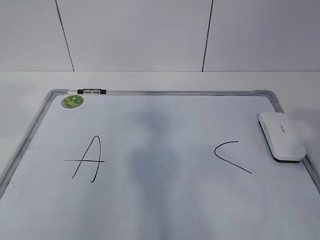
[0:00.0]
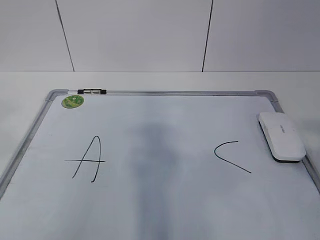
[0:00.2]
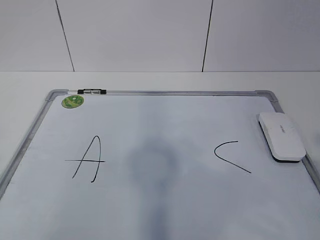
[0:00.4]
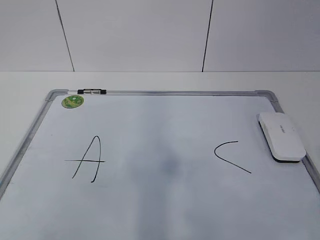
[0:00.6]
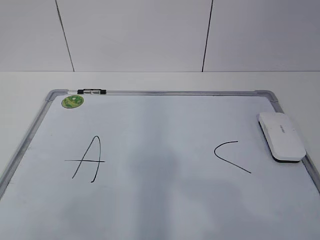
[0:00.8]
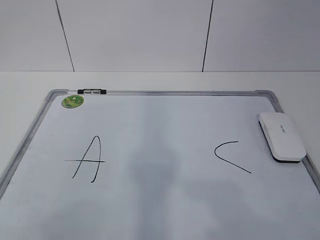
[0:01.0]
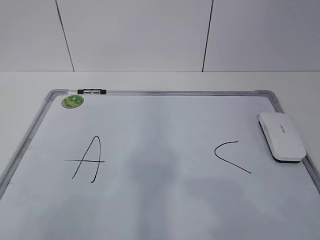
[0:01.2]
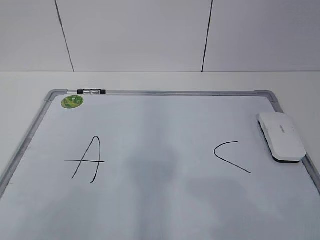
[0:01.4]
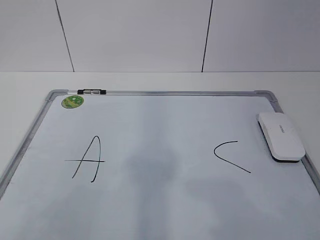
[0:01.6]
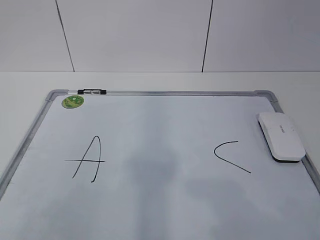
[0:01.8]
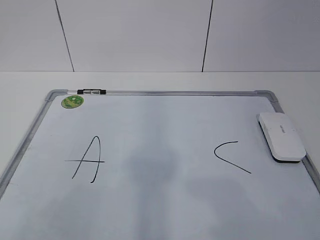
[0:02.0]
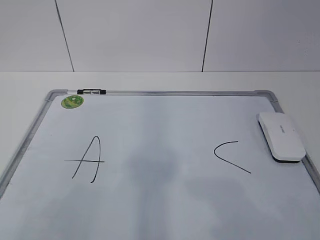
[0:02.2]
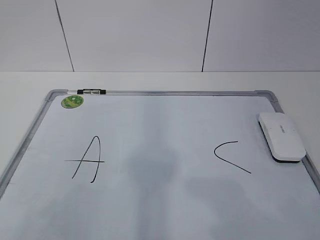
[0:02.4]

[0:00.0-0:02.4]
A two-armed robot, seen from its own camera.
Task of the whole recording: pick up the eraser on the blackboard and erase the letter "B".
0:00.0 to 0:01.2: The right gripper moves downward and backward, roughly 10 cm; the left gripper travels backward and downward by roughly 20 cm.

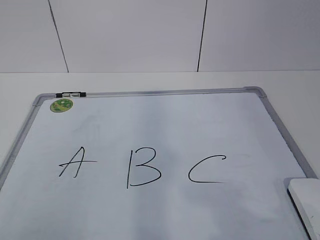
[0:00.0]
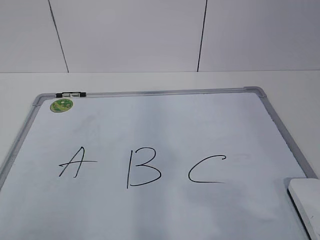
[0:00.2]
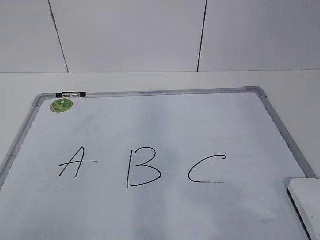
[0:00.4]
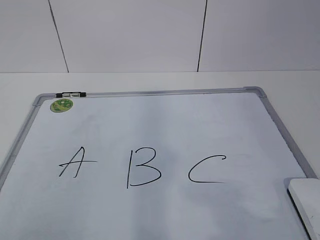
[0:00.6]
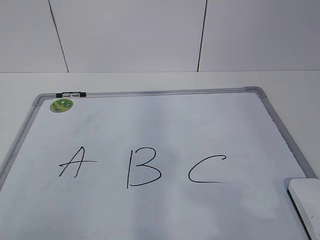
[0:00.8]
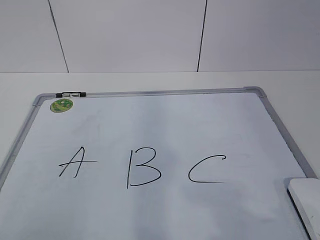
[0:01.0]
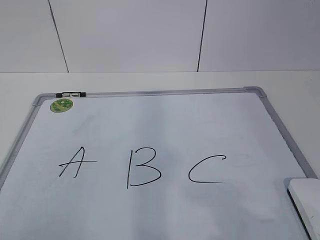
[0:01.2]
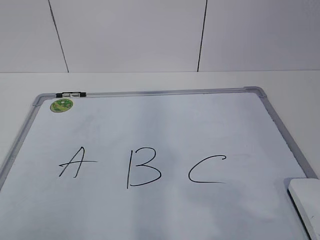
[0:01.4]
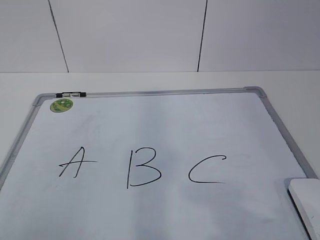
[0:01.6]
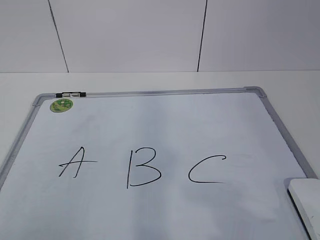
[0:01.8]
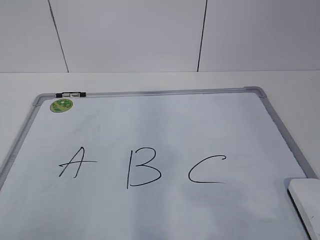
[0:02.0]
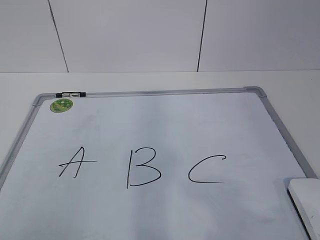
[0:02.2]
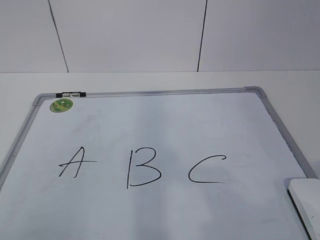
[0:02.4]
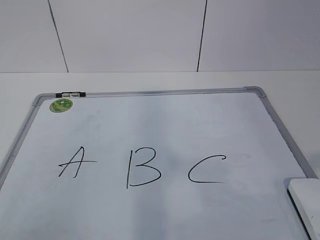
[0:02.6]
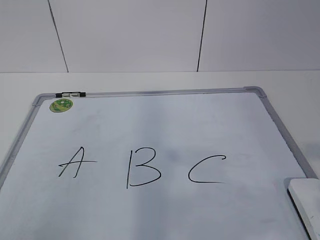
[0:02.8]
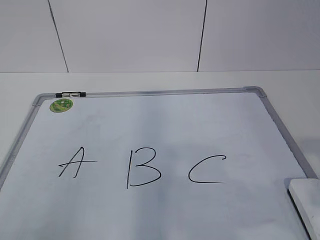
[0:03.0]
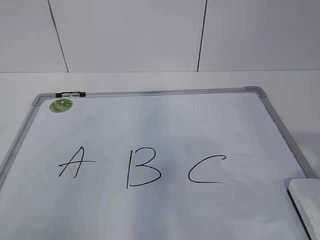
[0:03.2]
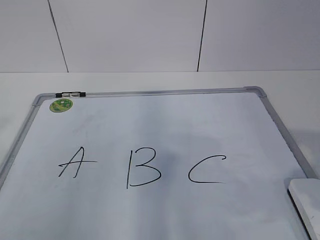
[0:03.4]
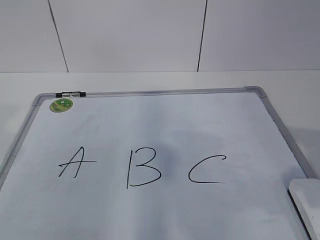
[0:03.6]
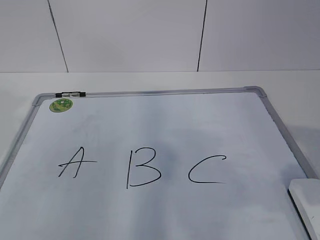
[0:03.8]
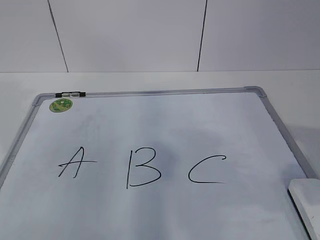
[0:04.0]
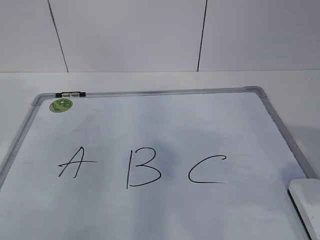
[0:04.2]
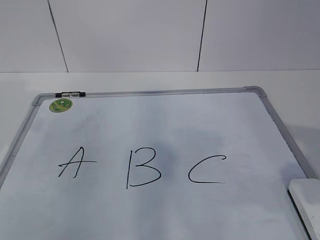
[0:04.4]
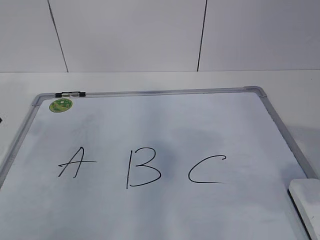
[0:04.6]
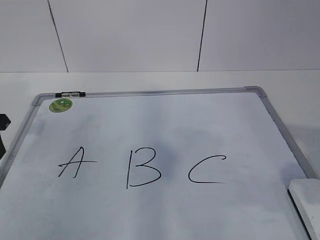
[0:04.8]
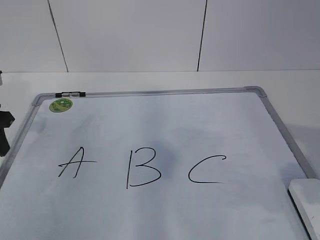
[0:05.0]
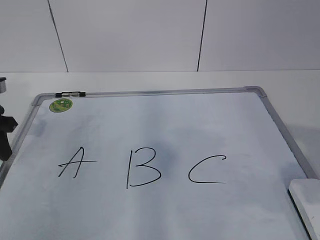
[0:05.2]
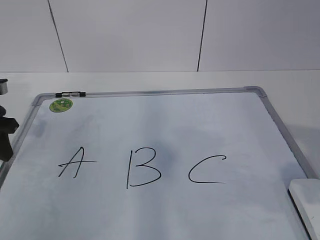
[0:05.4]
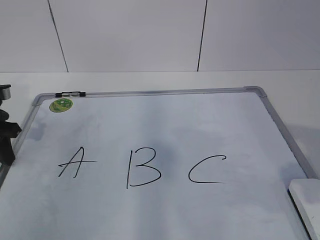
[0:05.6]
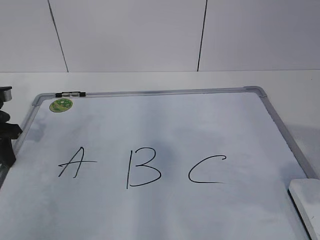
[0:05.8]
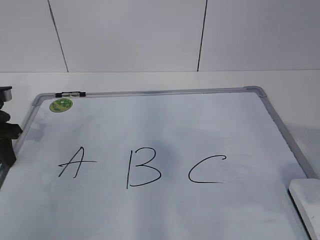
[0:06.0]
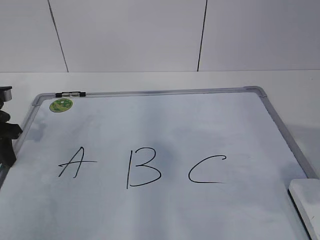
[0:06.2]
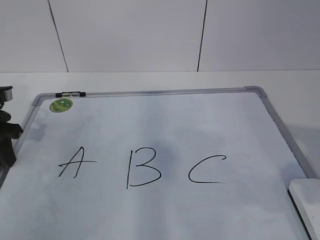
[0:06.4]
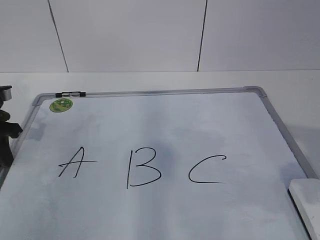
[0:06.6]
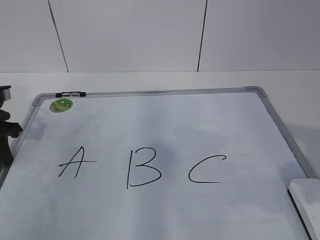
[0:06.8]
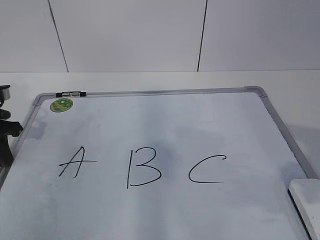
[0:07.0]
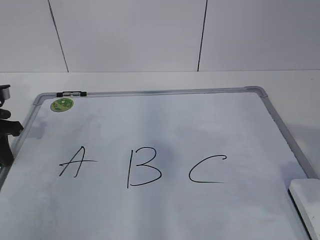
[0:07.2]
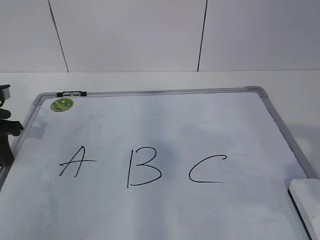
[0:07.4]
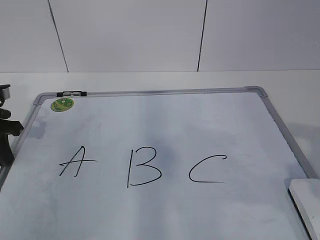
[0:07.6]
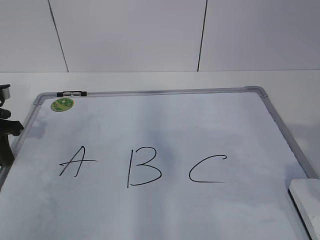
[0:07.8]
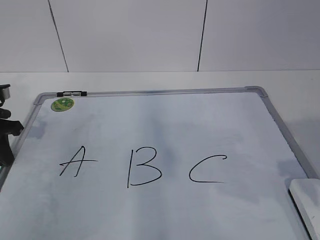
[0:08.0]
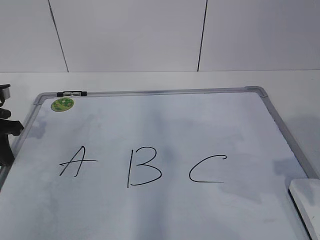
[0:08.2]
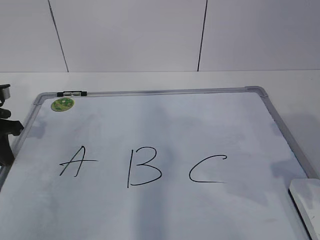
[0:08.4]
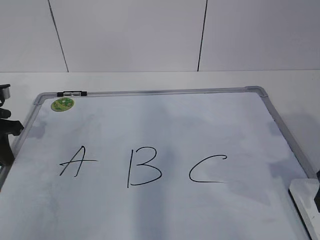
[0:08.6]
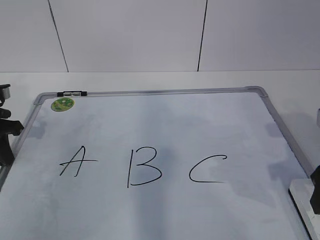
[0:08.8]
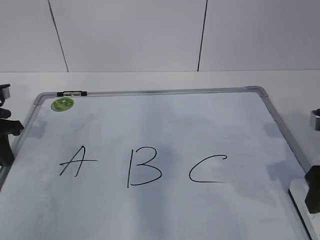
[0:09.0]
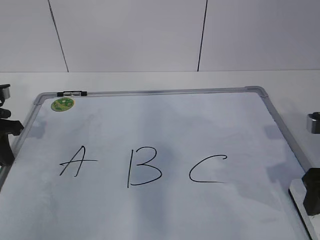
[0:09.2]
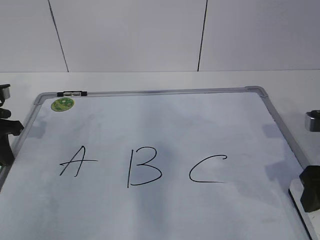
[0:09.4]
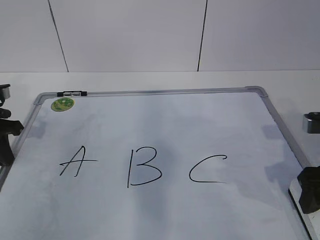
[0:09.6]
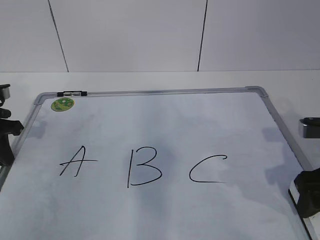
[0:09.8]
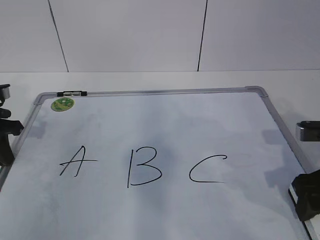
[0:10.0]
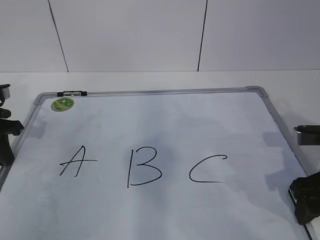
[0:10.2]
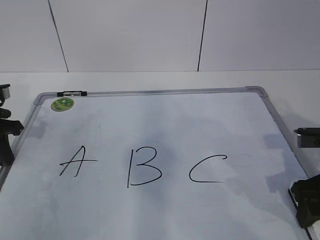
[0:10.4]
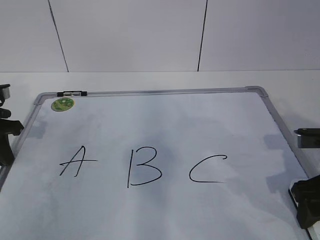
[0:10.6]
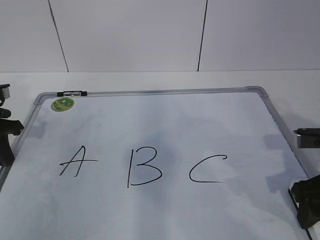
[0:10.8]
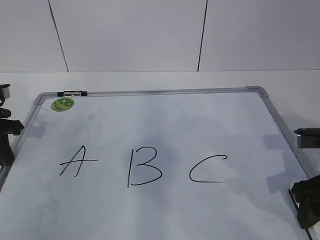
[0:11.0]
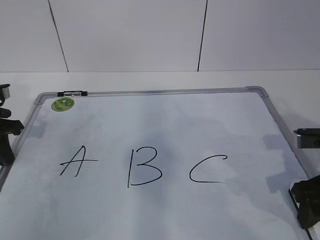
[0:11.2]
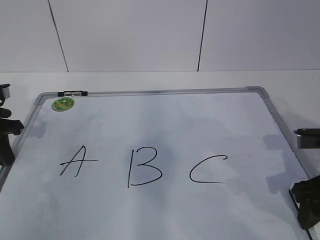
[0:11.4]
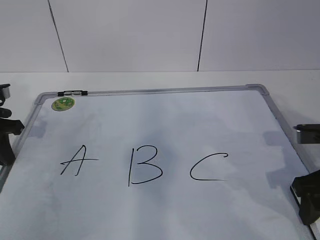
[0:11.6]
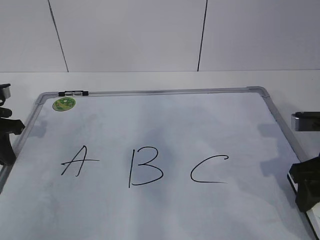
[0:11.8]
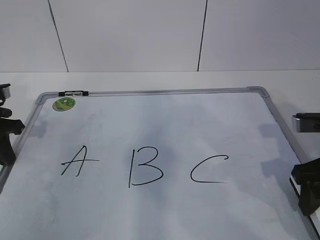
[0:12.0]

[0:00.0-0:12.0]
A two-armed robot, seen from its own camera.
Task of the whole recording: pick up the eraser on the blackboard and erase the letter "B".
0:04.4 to 0:06.0: The left gripper shifts approximately 10 cm downward.
0:06.0 to 0:07.6: The left gripper closes.
0:07.6 to 0:09.0: The right gripper is displaced forward and downward by roughly 15 cm.
0:09.0 to 0:12.0: There are only small adjustments of the grippers.

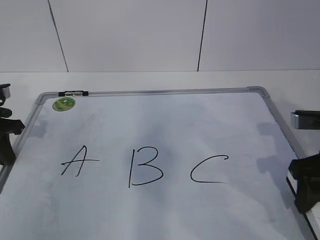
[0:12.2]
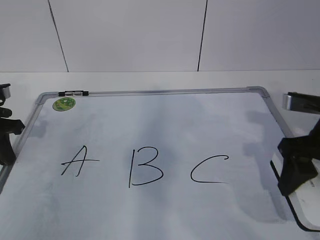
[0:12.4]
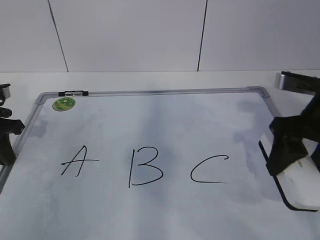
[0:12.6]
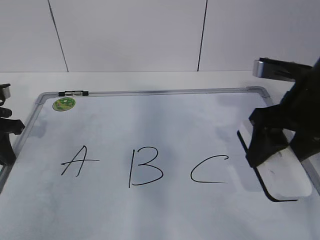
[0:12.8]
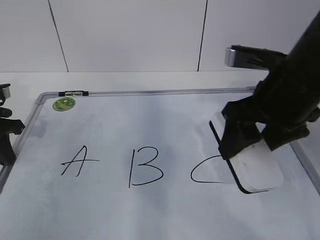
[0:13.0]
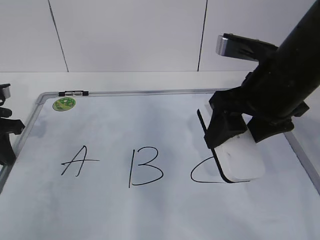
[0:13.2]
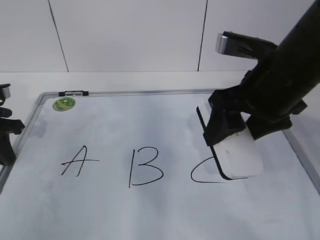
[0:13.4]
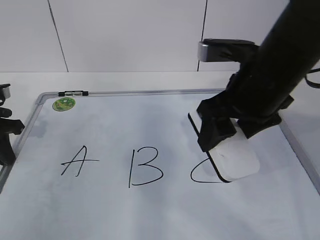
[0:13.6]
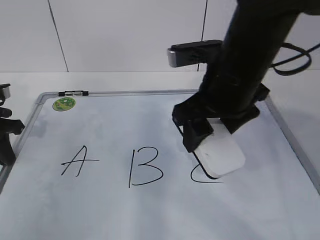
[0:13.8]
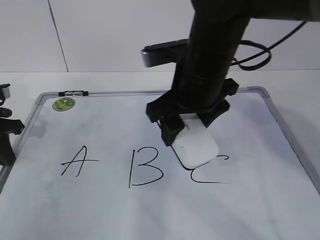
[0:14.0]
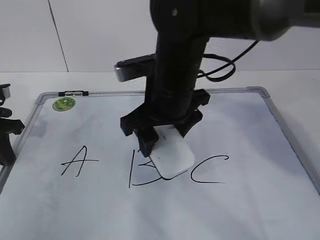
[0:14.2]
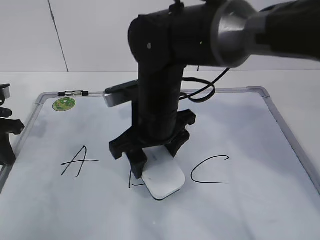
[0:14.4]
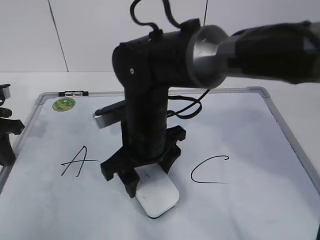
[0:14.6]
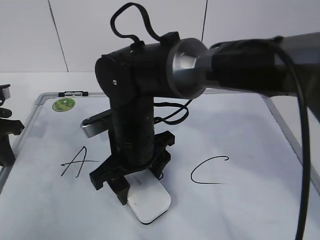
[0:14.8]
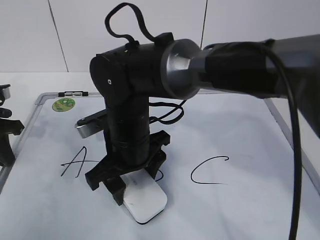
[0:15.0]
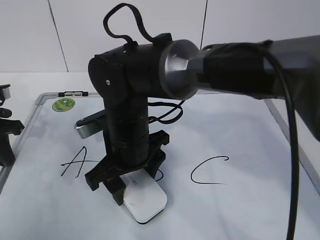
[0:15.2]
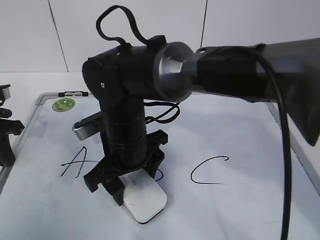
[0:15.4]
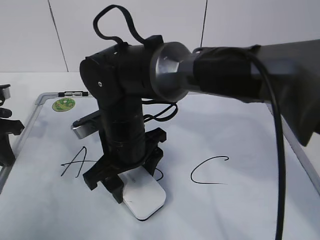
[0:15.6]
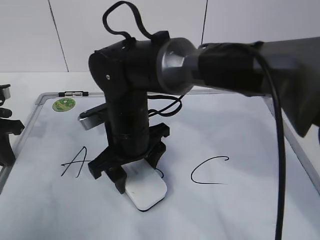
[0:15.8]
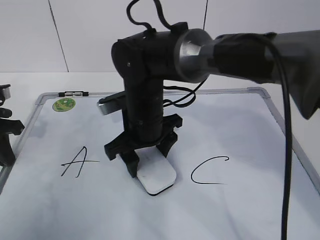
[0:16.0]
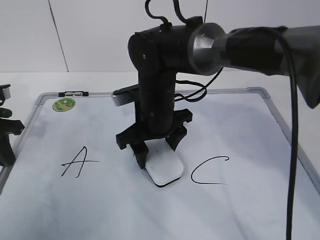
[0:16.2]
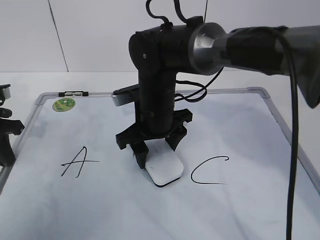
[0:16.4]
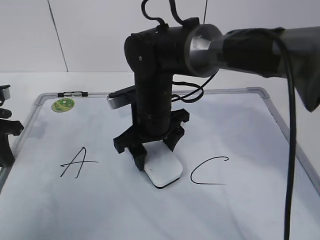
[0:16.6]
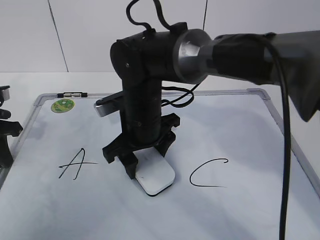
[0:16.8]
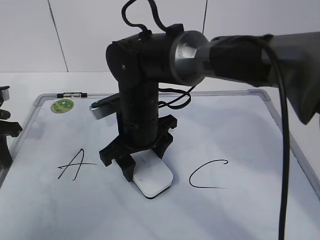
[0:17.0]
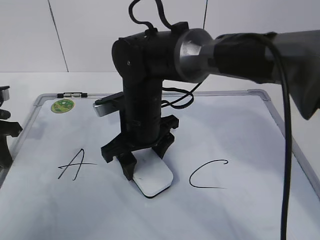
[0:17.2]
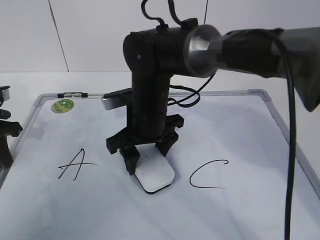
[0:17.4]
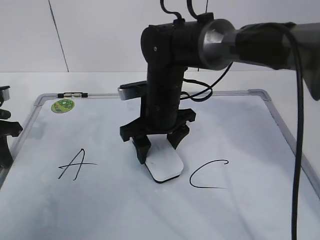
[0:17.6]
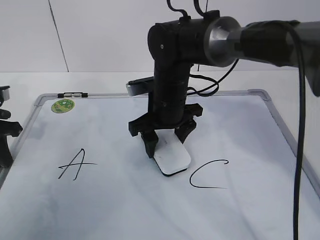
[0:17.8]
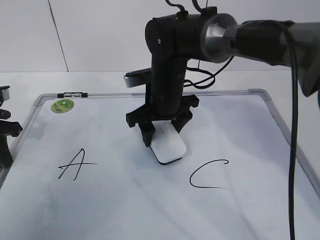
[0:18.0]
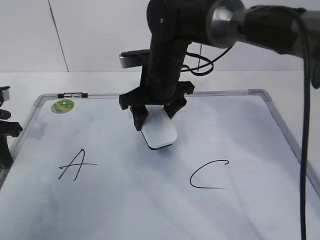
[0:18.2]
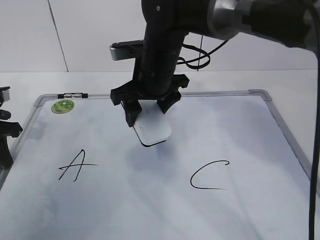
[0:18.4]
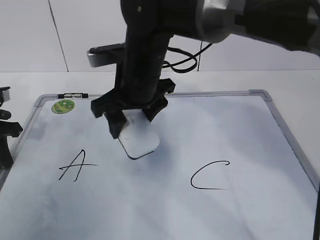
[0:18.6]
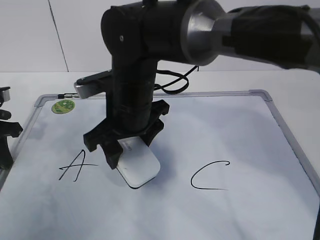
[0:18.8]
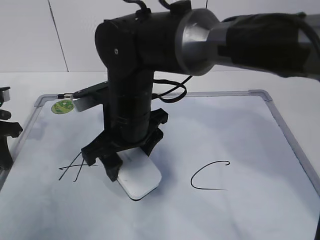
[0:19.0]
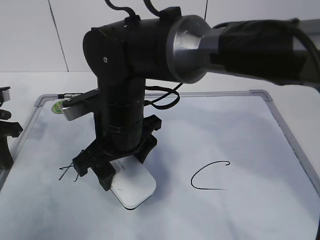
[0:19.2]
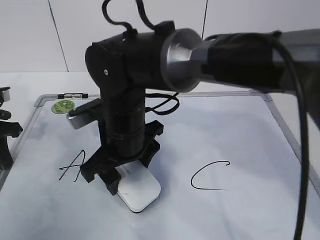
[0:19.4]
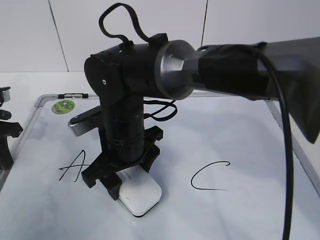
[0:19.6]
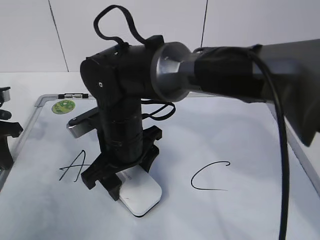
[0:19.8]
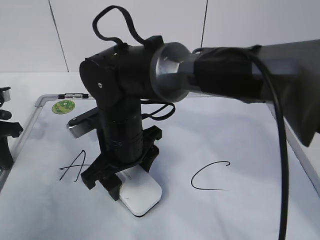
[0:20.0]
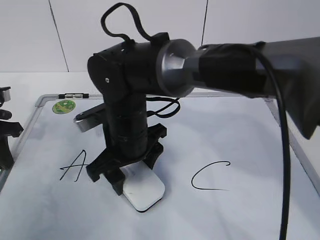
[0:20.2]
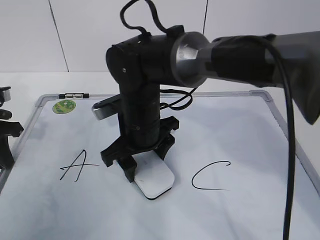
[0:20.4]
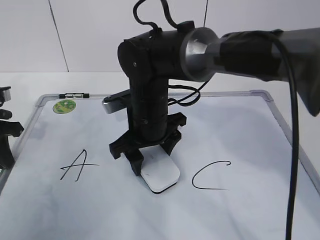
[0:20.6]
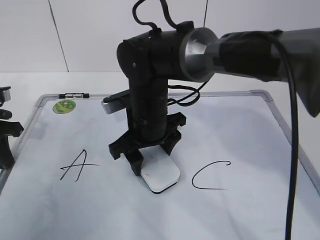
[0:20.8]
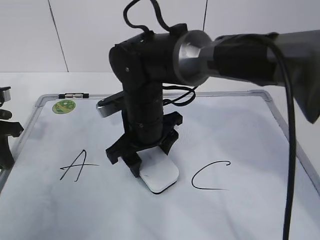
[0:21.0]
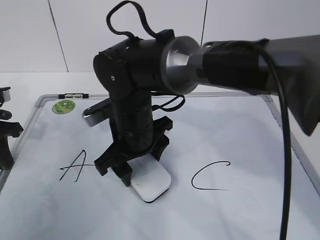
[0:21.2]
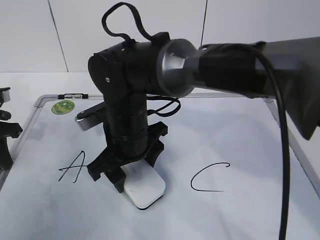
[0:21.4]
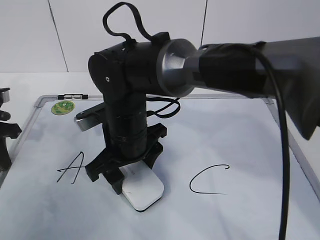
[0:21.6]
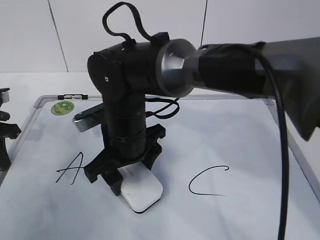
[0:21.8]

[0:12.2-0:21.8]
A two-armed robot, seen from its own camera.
Task of the whole recording: pick up the eraser on the blackboard and erase the letter "B".
Step, 0:12.2 to 0:19.6: Erase the letter B with your right hand.
0:12.2 to 0:13.8: The right gripper travels to the left and upward by about 15 cm.
0:13.8 to 0:15.4: The right gripper goes approximately 20 cm to the left and downward.
0:17.0 to 0:18.6: The right gripper goes about 5 cm upward.
0:18.6 to 0:20.2: The right gripper is displaced downward by approximately 5 cm.
0:20.2 to 0:21.8: The grippers stay close to where they were, moving slightly.
